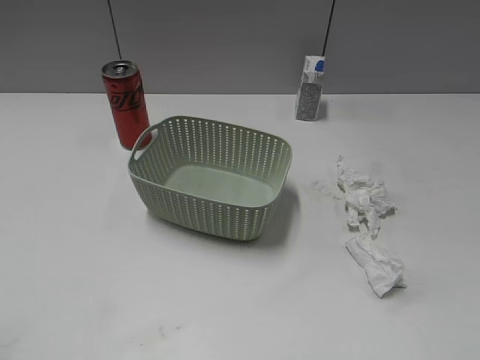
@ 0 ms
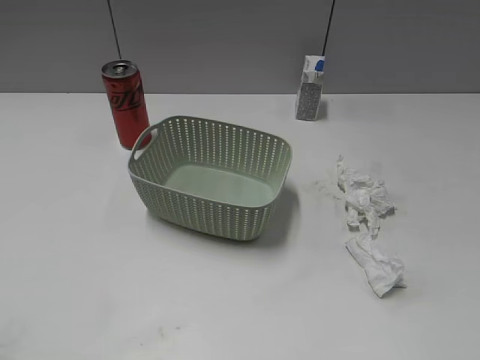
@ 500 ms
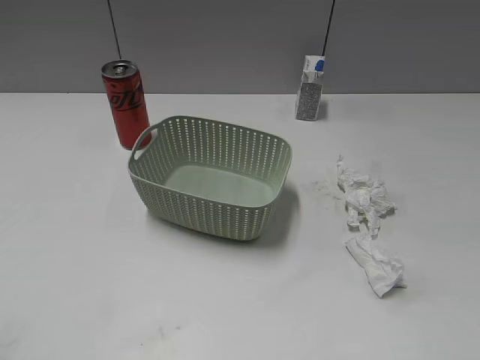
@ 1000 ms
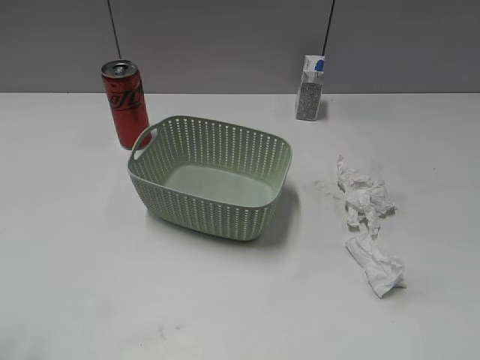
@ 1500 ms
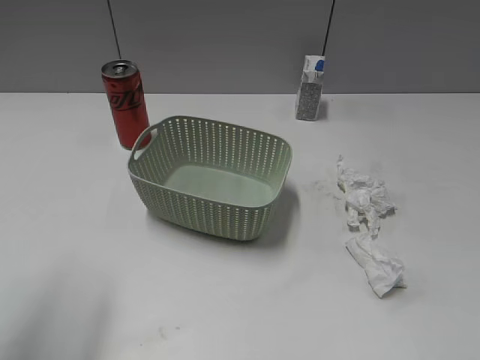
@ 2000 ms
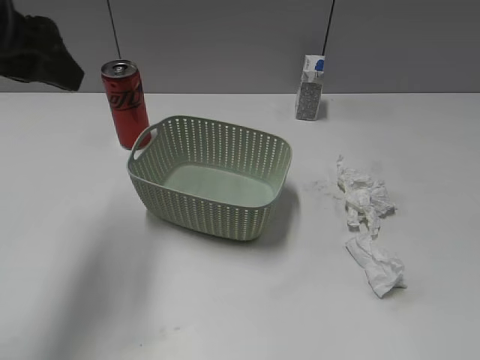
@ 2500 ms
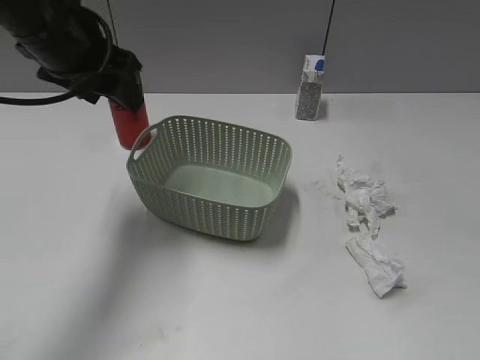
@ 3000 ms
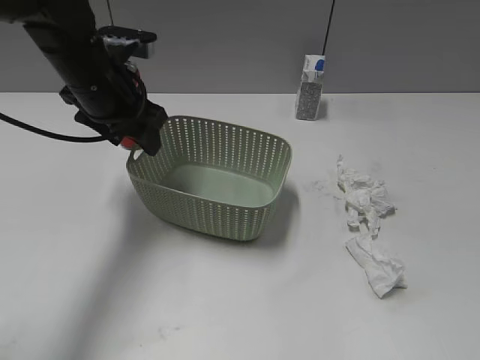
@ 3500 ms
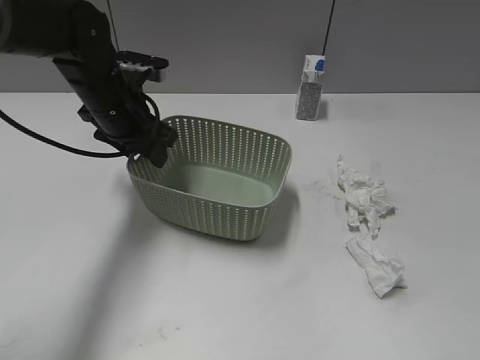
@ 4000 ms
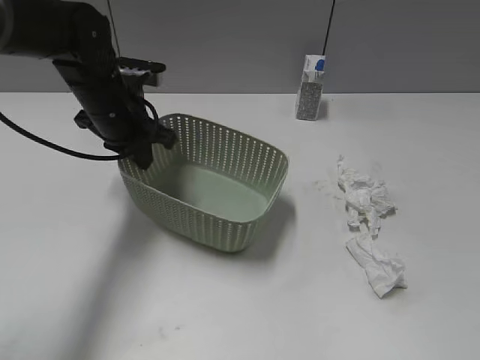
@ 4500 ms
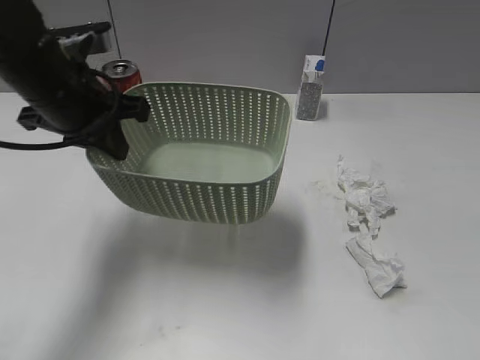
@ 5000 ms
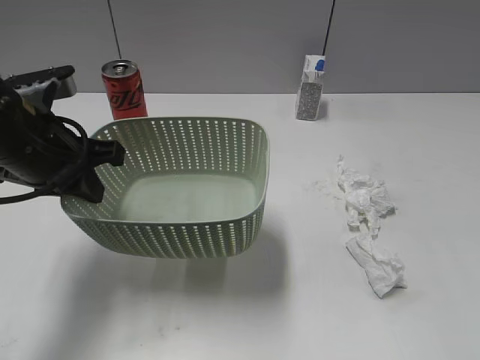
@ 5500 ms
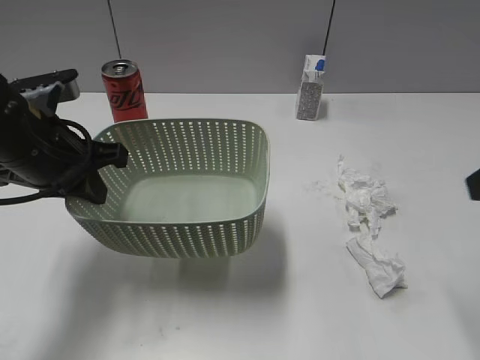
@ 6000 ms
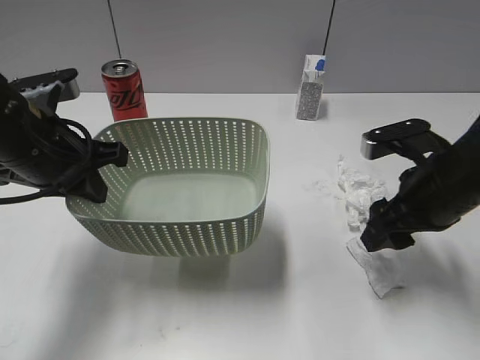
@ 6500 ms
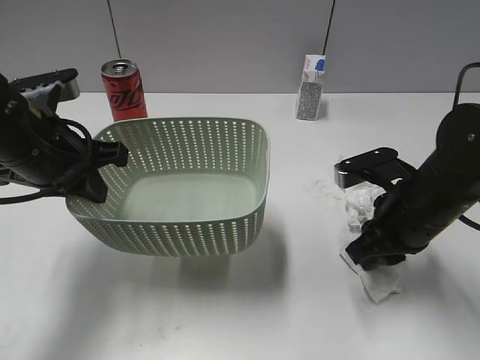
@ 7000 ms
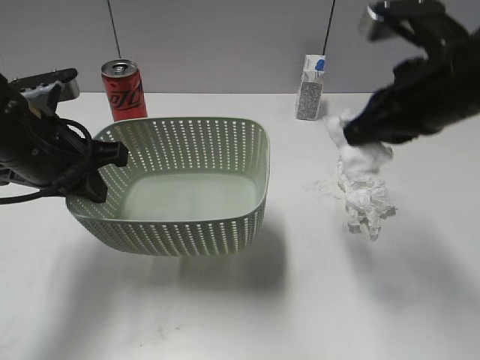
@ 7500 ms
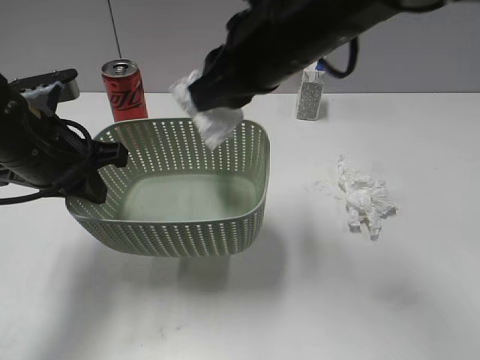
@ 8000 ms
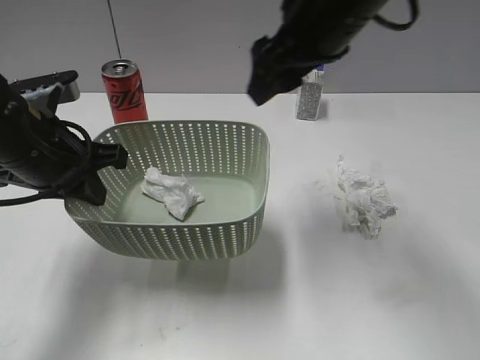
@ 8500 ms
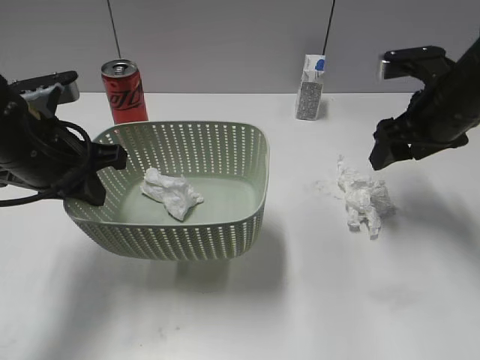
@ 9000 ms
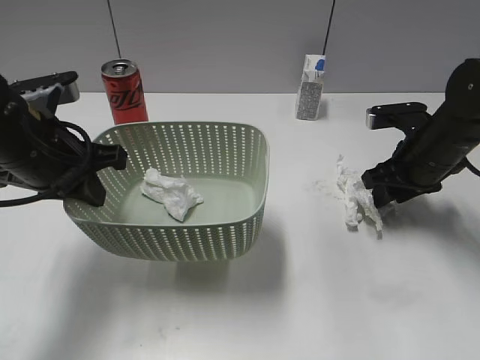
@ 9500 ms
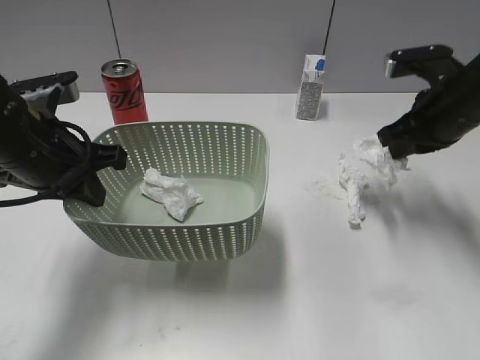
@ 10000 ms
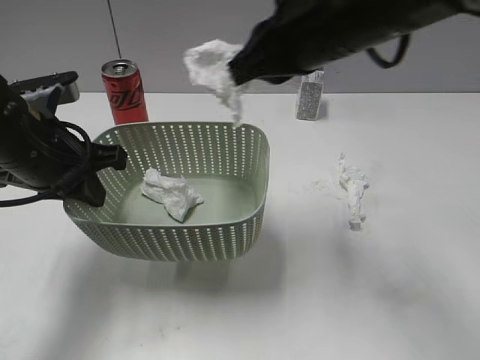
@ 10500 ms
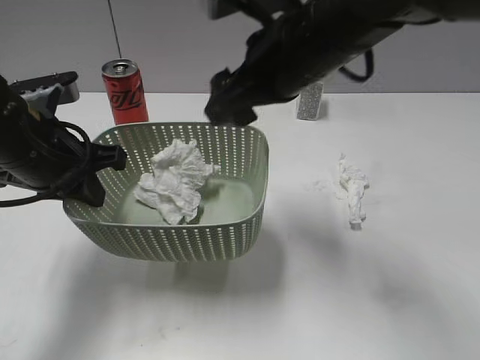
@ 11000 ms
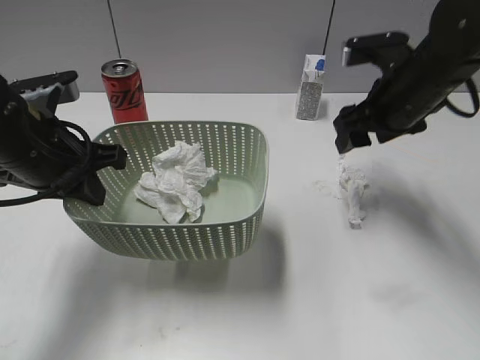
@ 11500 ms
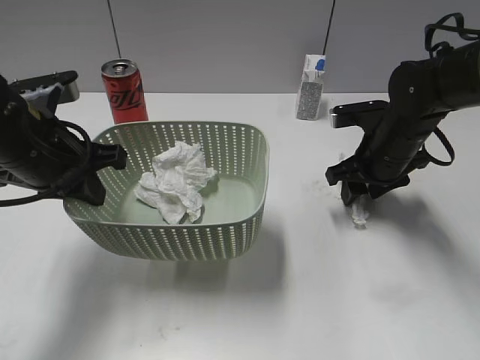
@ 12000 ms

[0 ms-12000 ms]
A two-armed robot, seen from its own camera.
Step, 2000 ms to 4500 ms: Grasp the basket with left gripper.
Step, 5000 ms to 5500 ms: Lift the basket with left gripper.
Step, 6000 ms to 7000 ms: Grasp the waste paper with right gripper.
Step, 7500 ms to 8000 ms: Place the waste paper in the basket with right gripper.
Step, 8500 ms to 10000 ms: Grasp the waste paper with right gripper.
Step, 10500 ms to 11000 ms: Place the waste paper in the basket with right gripper.
2000 ms to 4000 ms: The left gripper is displaced forward, downward and to the right by roughly 30 cm.
4000 ms to 6000 ms: The left gripper moves backward, some 10 cm, and closes. Meanwhile the right gripper moves forward, about 15 cm.
6000 ms to 8000 ms: The right gripper travels to the left and forward by roughly 25 cm, and closes up.
8000 ms to 10000 ms: The right gripper shifts approximately 20 cm to the right and downward, and opens, then closes again.
10000 ms to 12000 ms: The right gripper travels downward by some 5 cm, travels to the left and back again, about 20 cm each way, and opens up.

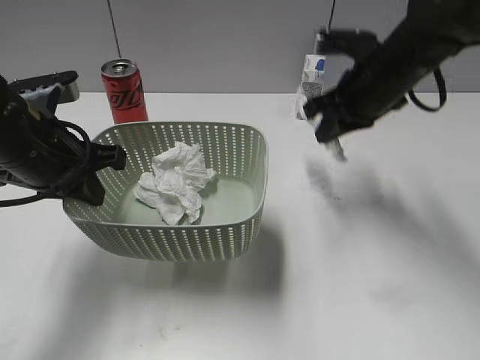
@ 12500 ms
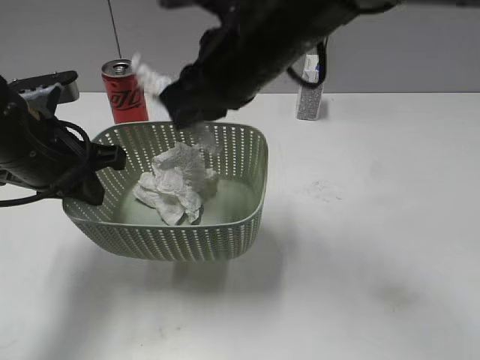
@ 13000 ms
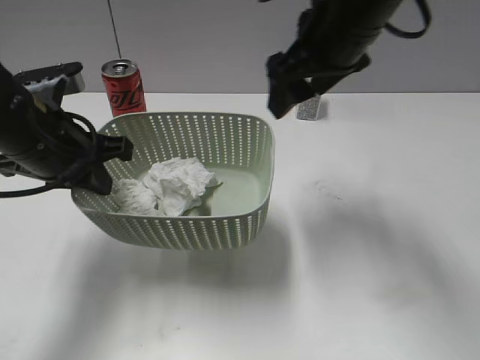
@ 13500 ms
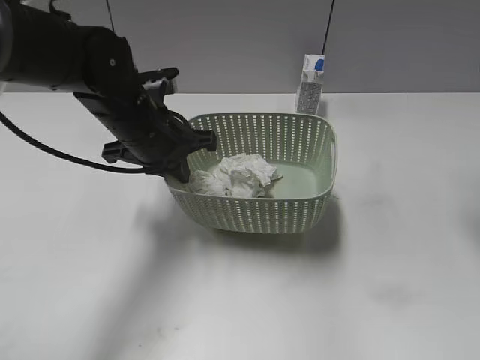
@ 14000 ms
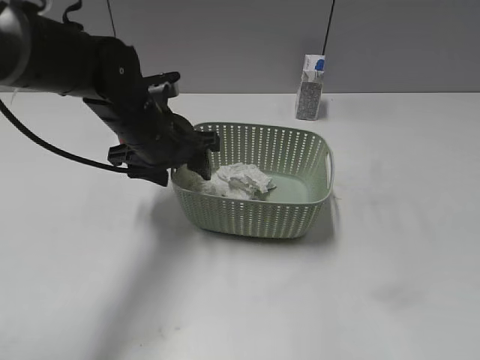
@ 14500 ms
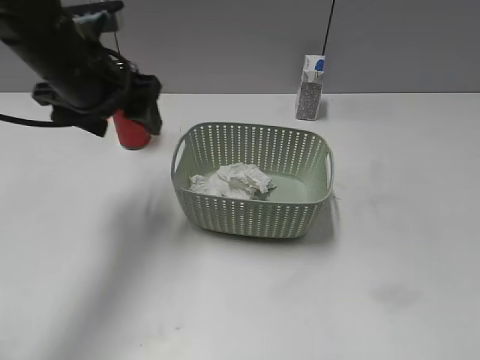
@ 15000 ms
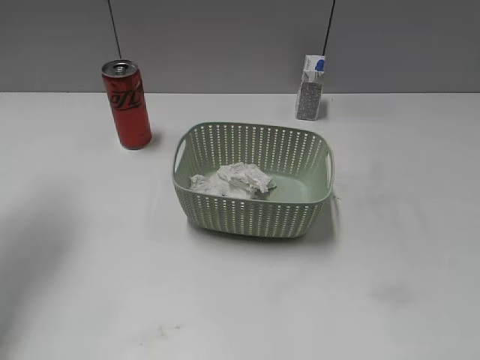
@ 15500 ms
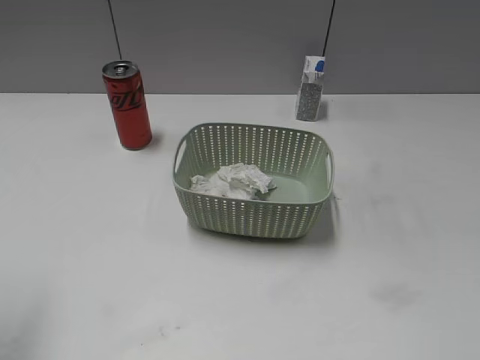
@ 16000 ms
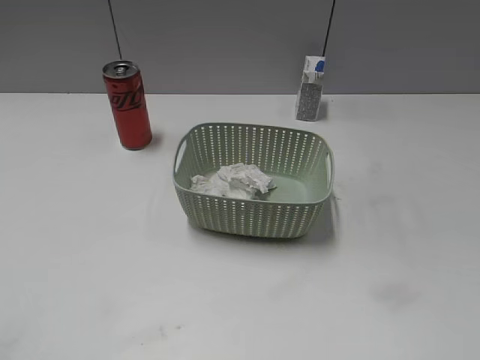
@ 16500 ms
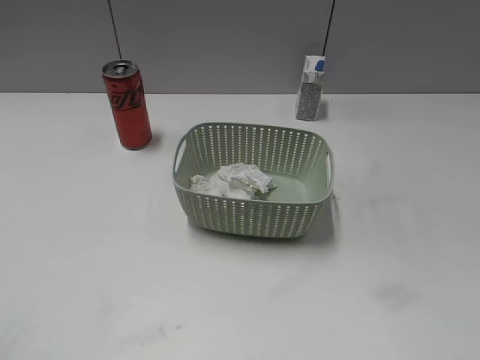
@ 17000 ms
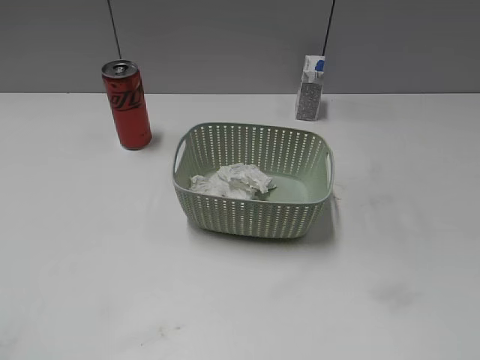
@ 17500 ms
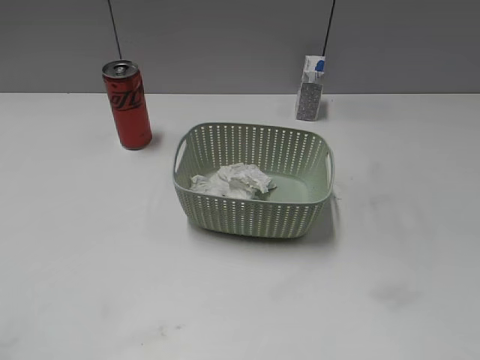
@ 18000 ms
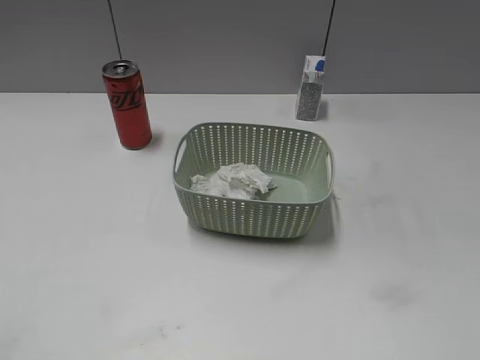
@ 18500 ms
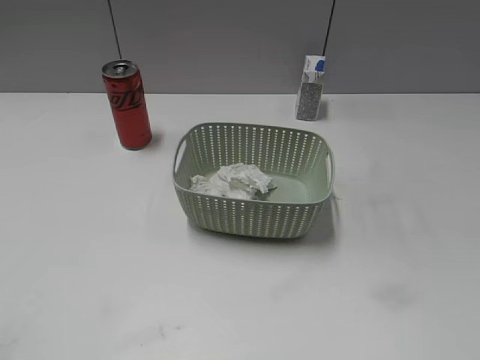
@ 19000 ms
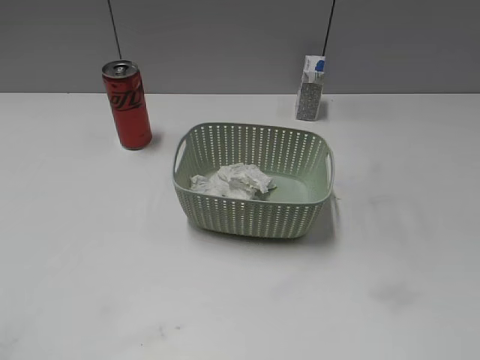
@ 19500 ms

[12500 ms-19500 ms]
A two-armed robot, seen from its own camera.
Step, 12500 ms to 13000 ms: Place the waste paper in the basket with right gripper.
Step, 13500 ms to 14500 ms: Place the basket on the table with left gripper.
12500 ms to 14500 ms: The right gripper goes some 25 cm upward, backward and to the right, and opens its fingers. Meanwhile the left gripper travels to the right and forward by some 10 cm, and opens.
14500 ms to 16000 ms: The left gripper heads to the left, upward and backward, covering approximately 35 cm, while the right gripper moves backward and downward, roughly 25 cm.

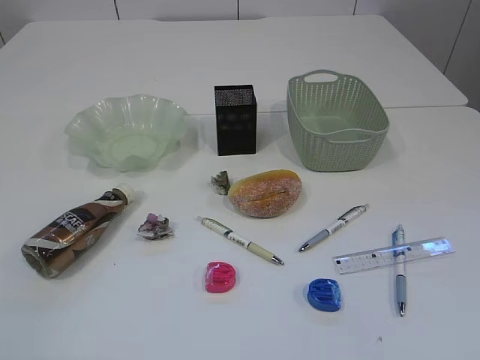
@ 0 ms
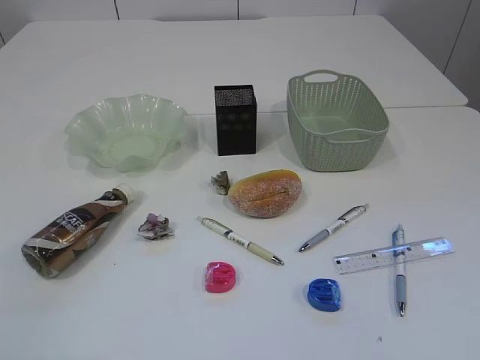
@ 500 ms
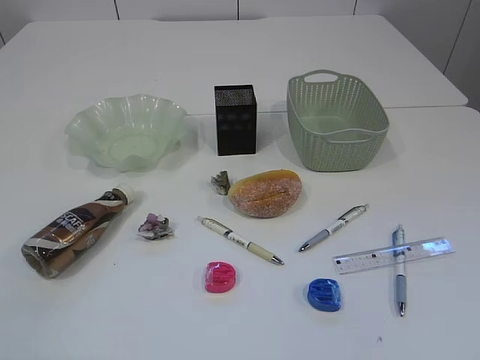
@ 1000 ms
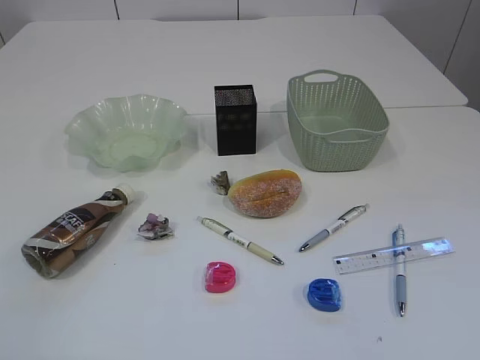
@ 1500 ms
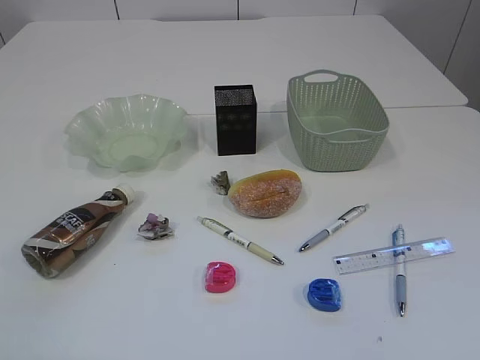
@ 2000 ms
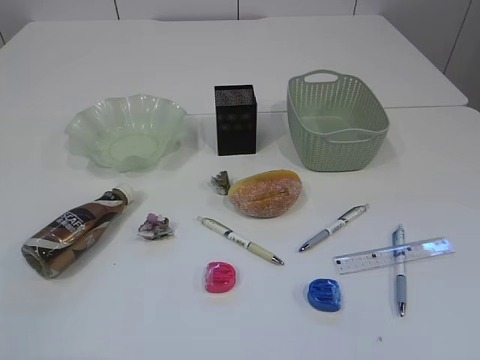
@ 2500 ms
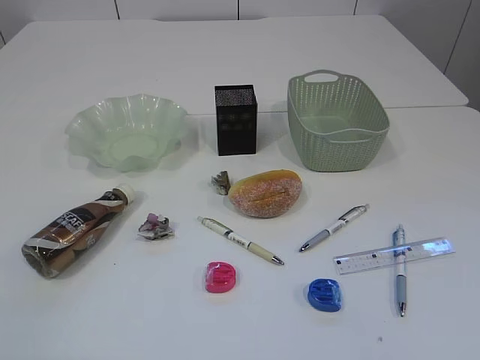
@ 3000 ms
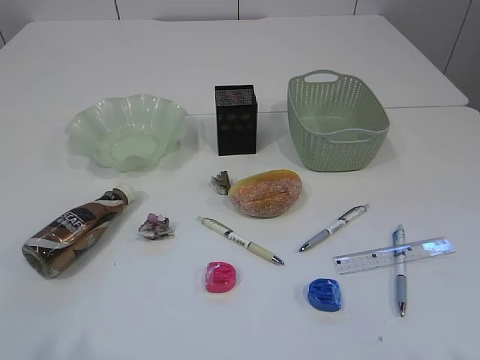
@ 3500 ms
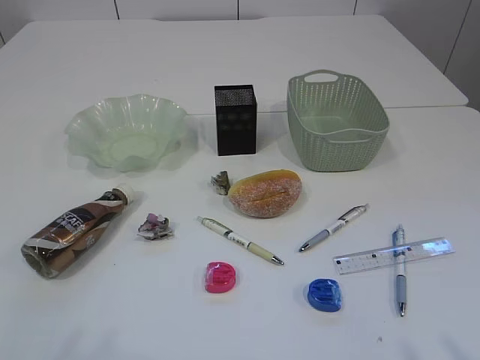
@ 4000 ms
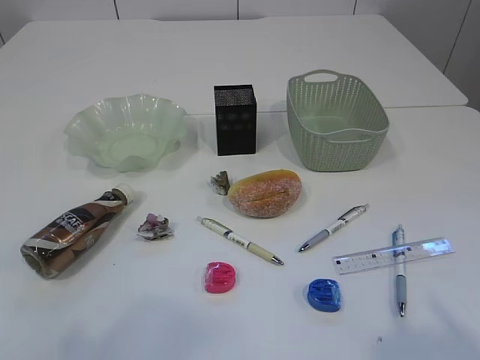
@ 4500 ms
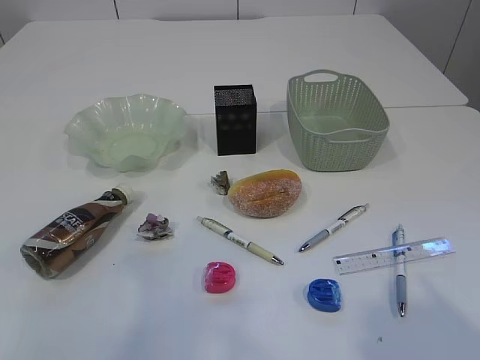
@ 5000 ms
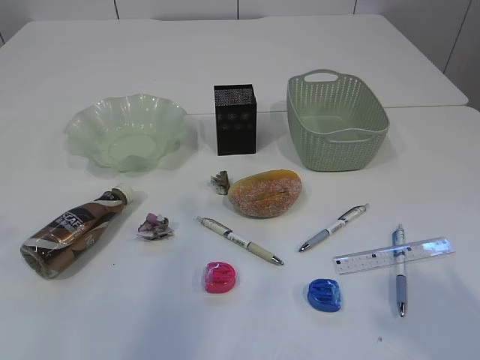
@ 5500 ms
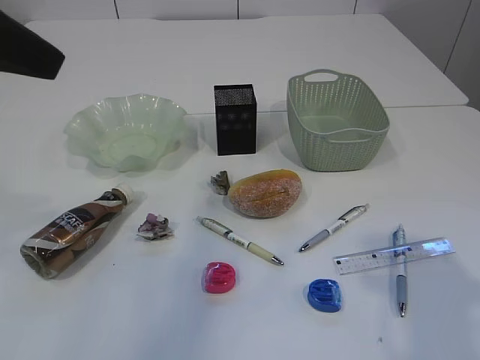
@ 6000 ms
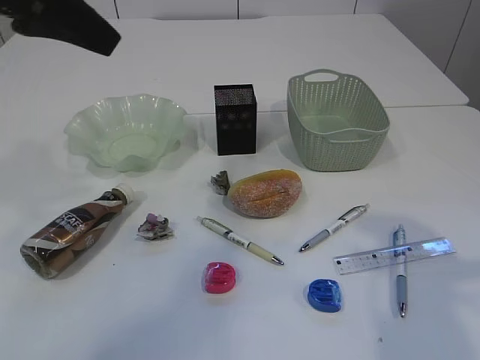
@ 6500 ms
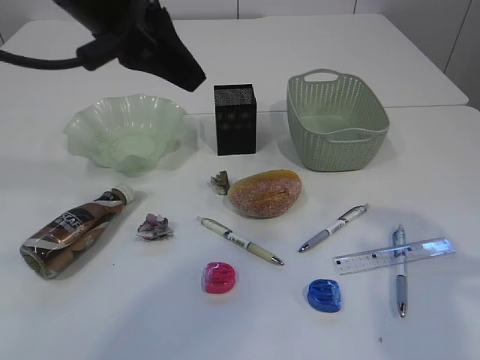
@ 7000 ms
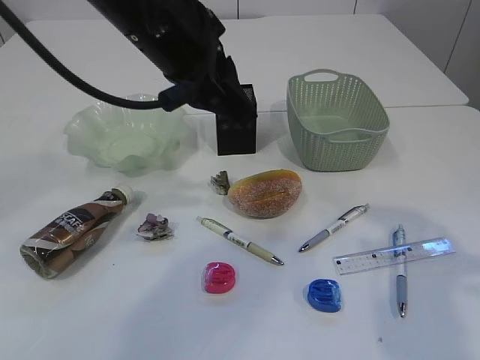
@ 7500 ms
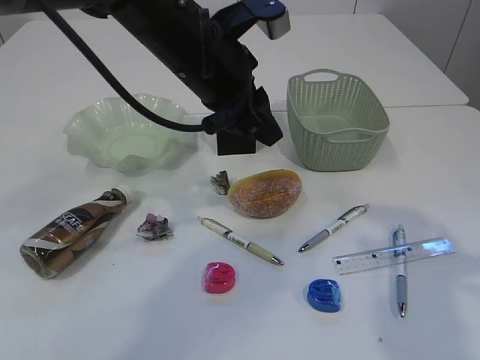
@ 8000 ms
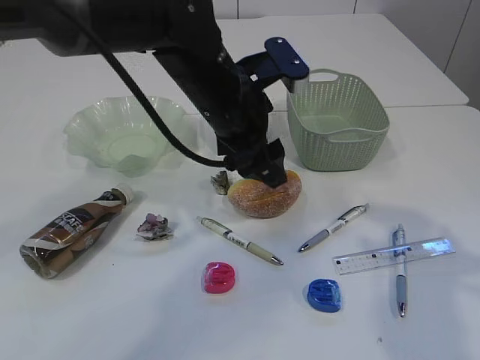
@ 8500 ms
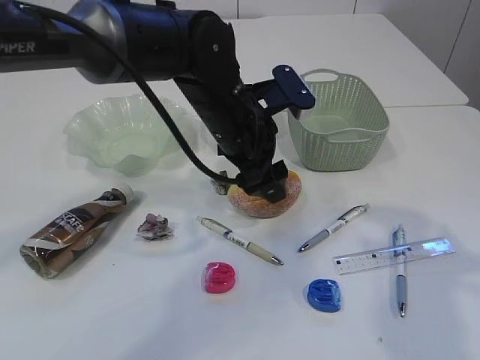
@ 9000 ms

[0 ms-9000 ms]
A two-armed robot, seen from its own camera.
4500 ms to 7000 ms: The right gripper travels forward by approximately 15 cm; the left gripper is displaced forward and to the right by approximately 35 cm.
7000 ms to 9000 ms: The left gripper goes some 20 cm downward and to the right, and opens.
